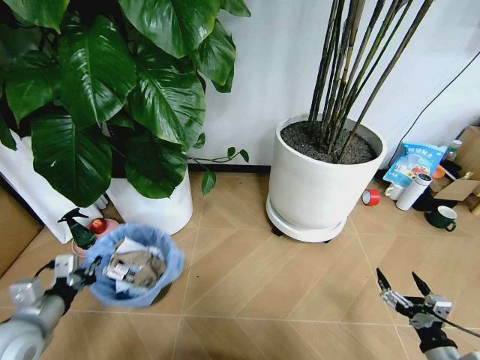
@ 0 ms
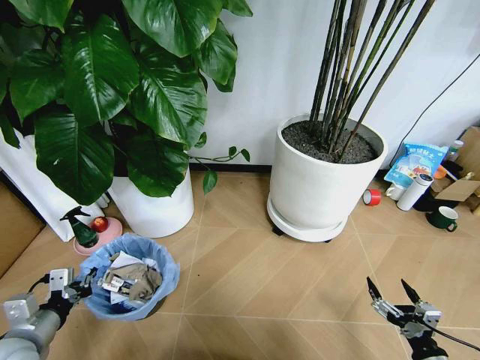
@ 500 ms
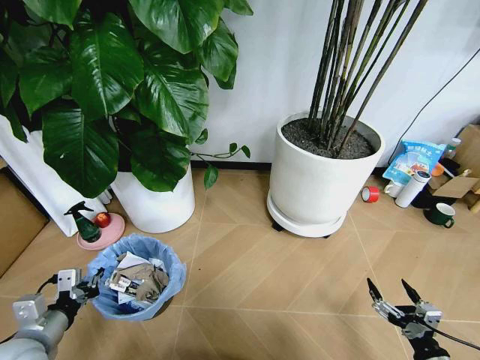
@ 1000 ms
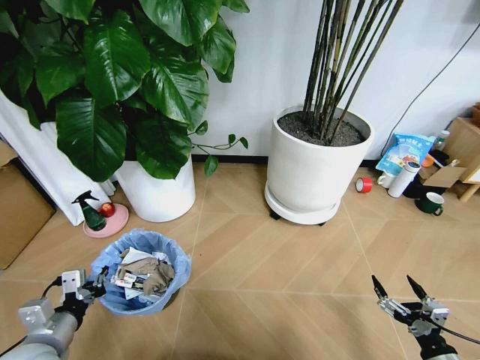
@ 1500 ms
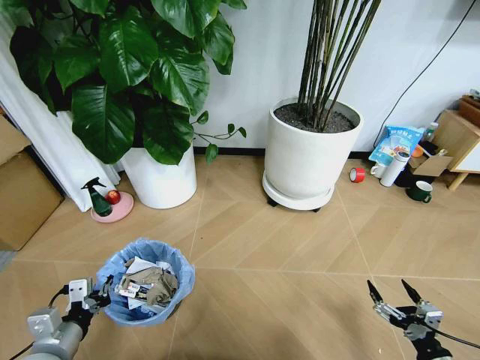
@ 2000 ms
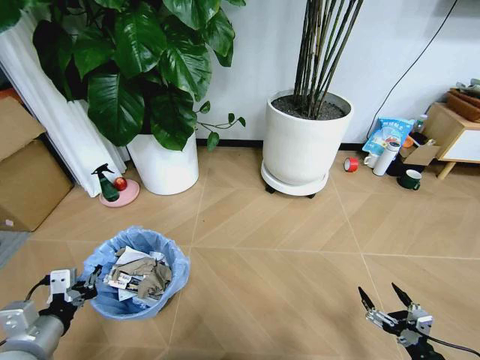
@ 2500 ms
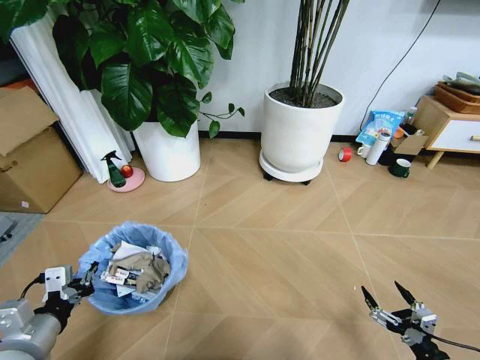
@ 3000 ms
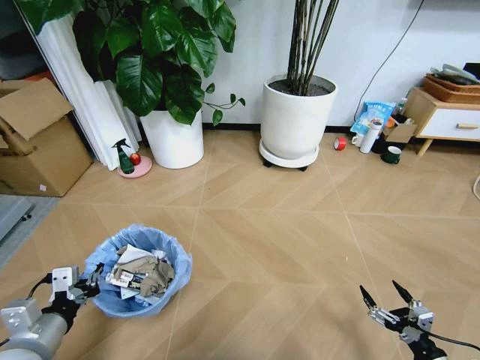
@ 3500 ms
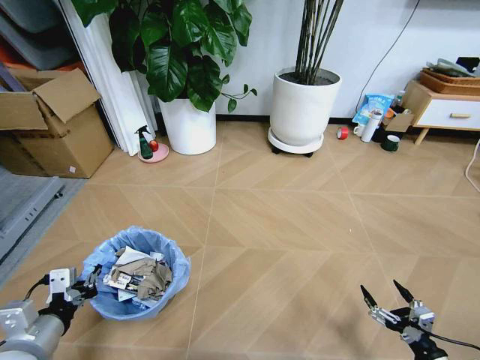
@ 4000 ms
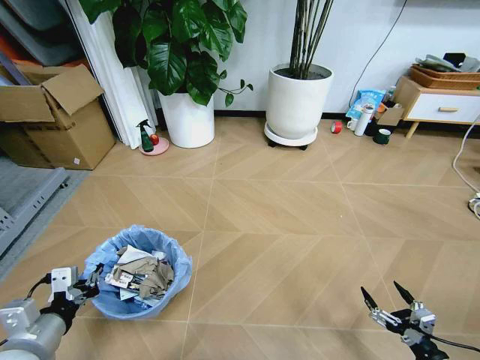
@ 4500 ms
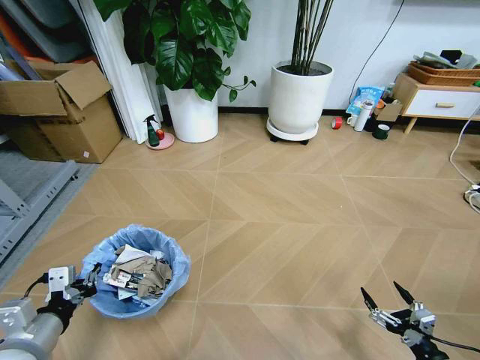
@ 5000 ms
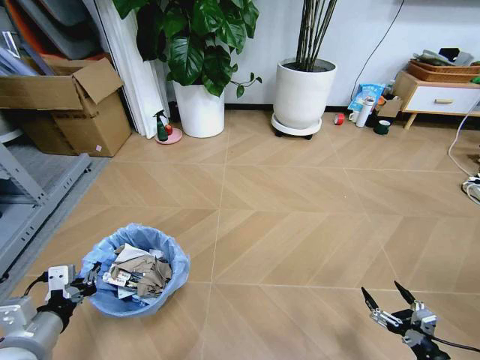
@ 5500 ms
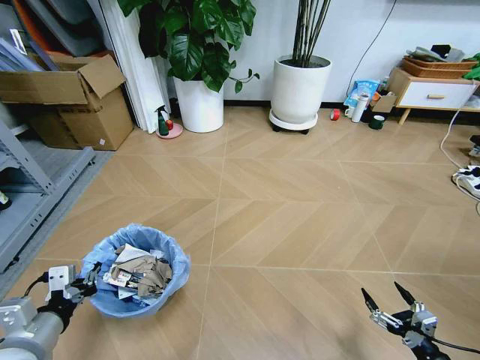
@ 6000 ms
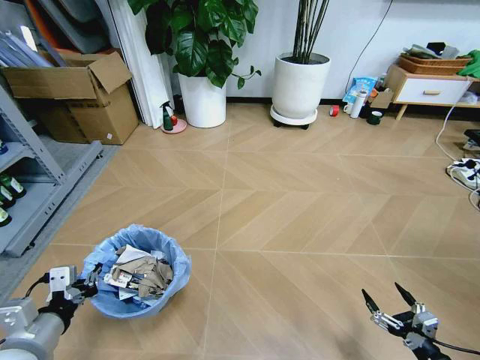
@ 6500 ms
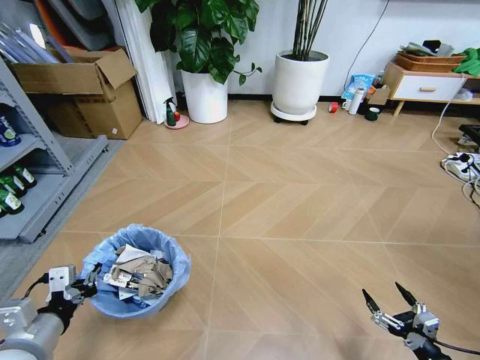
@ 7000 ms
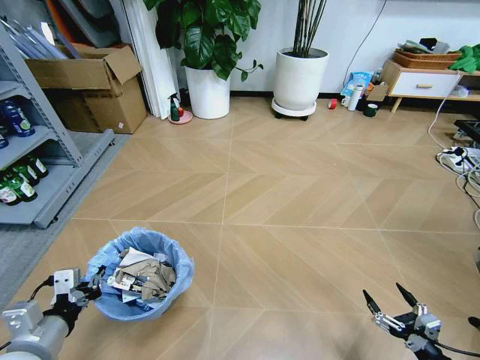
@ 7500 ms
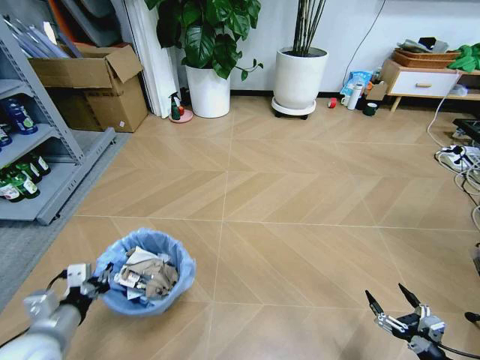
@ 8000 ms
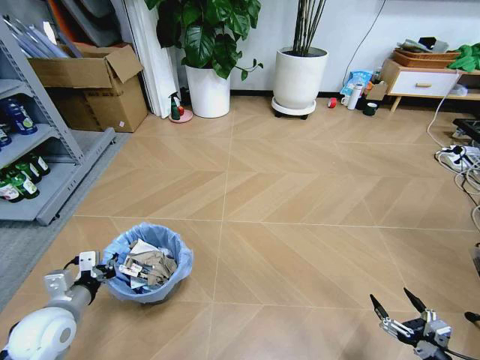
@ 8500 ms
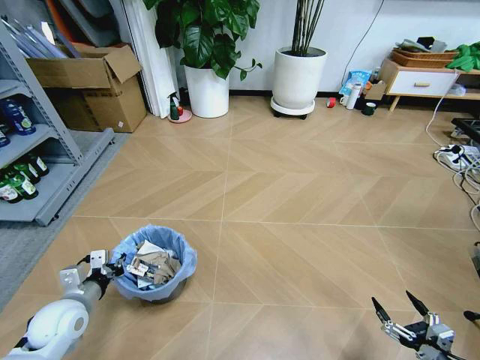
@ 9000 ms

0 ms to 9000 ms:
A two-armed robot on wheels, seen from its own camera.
Task of the whole recording: Pick up the trash bin and place the garbage on the floor into it.
0 ms to 2000 ms: The left gripper shifts by about 5 cm.
2000 ms to 4500 ms: The left gripper is displaced upward by some 5 cm.
7000 ms to 9000 ms: The left gripper shifts some 15 cm forward and downward.

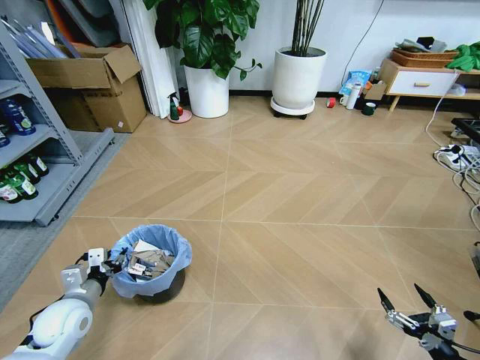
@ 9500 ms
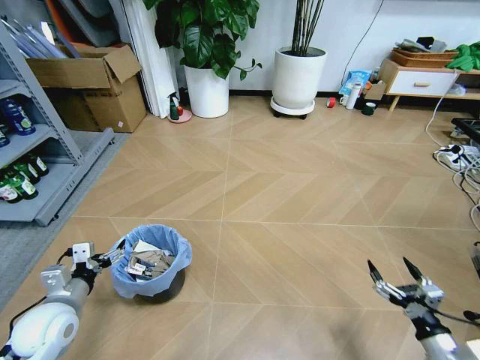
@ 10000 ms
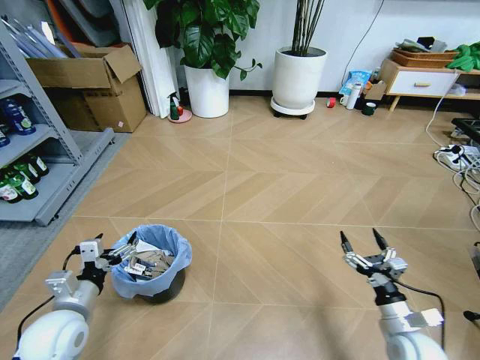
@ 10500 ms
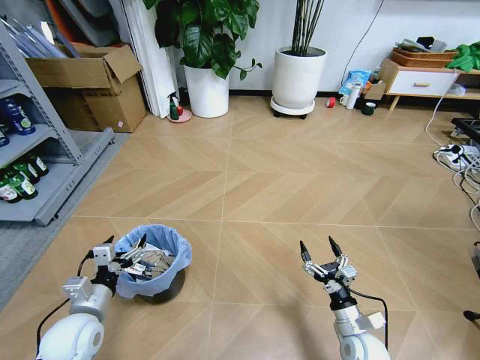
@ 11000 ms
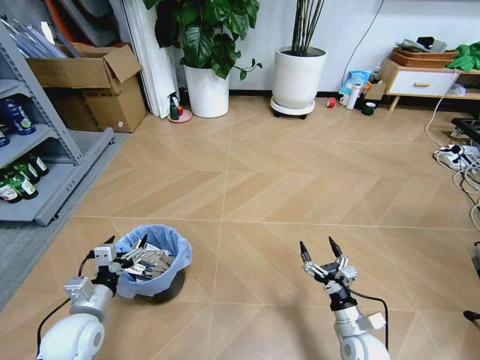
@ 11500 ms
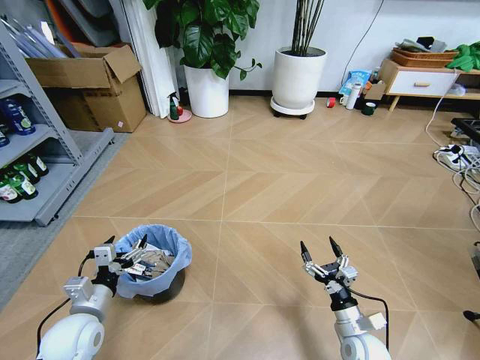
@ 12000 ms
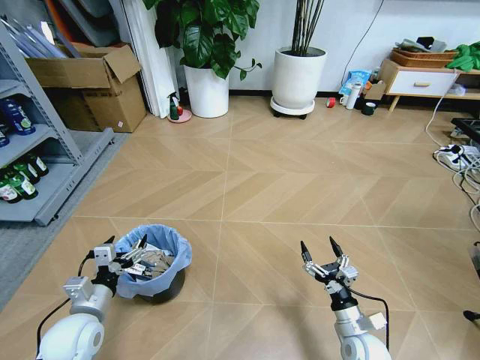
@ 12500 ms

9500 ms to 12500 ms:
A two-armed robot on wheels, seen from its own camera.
Task of the whole recording: Pick up the trash bin and place the garbage on the floor into it.
9500 ms to 11000 ms: The right gripper travels to the left and forward by roughly 20 cm. The left gripper moves about 5 cm, and opens up.
11000 ms to 12500 ms: The two grippers keep their place.
